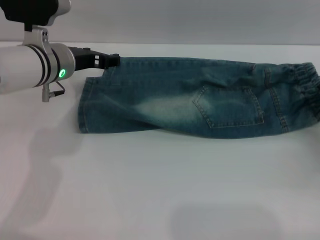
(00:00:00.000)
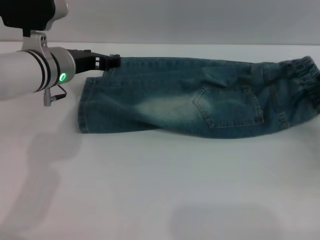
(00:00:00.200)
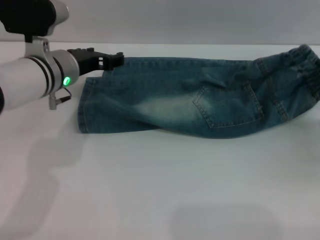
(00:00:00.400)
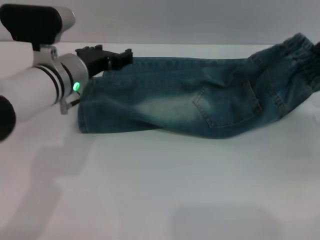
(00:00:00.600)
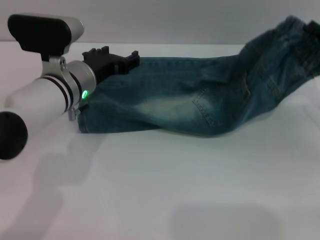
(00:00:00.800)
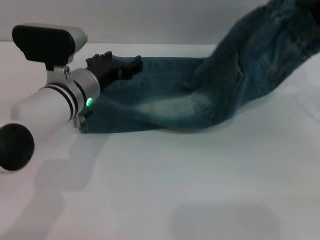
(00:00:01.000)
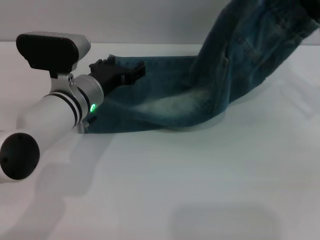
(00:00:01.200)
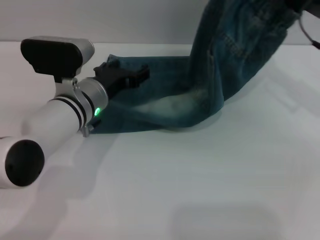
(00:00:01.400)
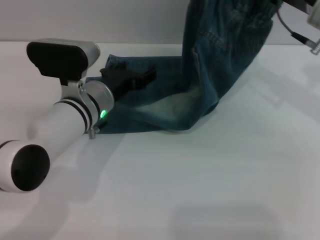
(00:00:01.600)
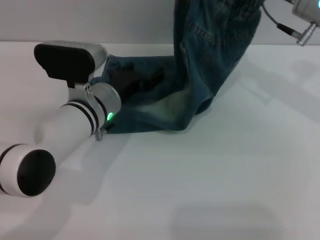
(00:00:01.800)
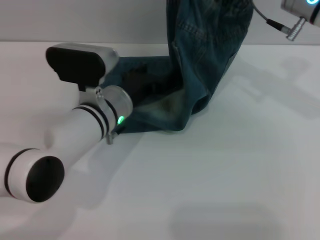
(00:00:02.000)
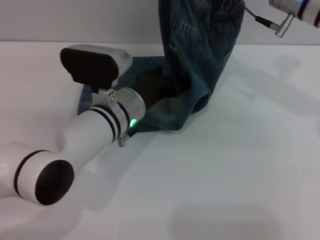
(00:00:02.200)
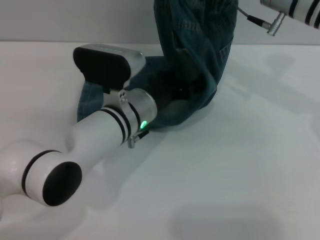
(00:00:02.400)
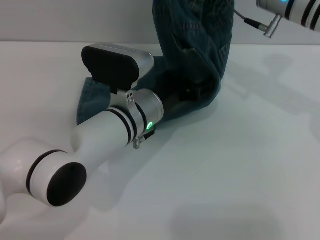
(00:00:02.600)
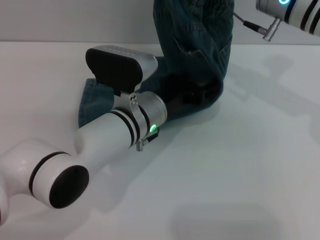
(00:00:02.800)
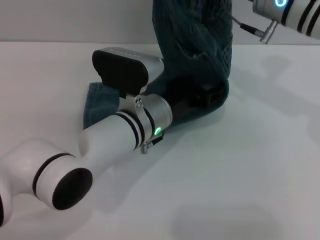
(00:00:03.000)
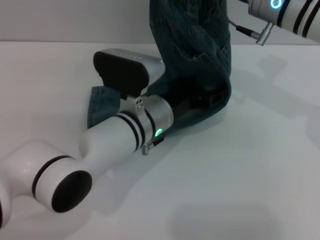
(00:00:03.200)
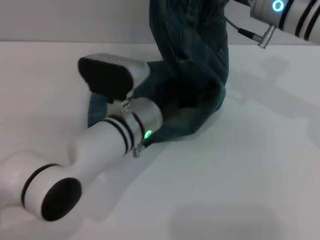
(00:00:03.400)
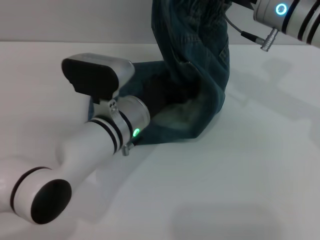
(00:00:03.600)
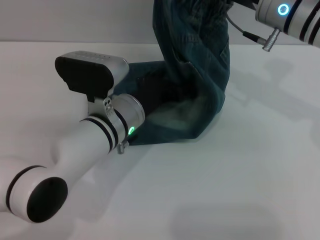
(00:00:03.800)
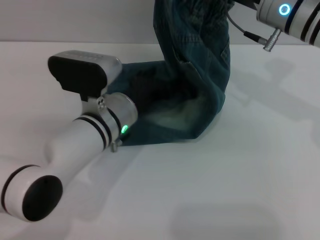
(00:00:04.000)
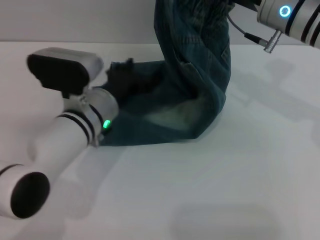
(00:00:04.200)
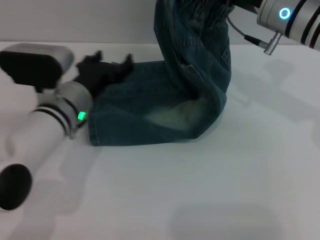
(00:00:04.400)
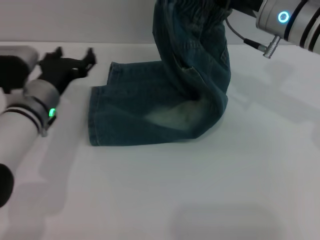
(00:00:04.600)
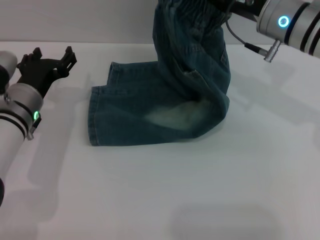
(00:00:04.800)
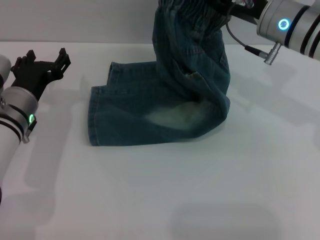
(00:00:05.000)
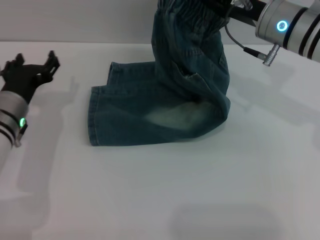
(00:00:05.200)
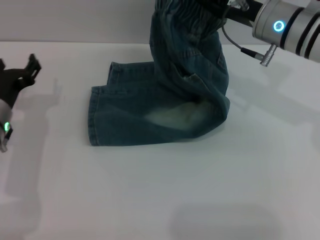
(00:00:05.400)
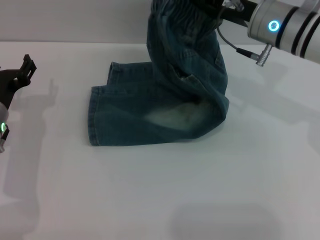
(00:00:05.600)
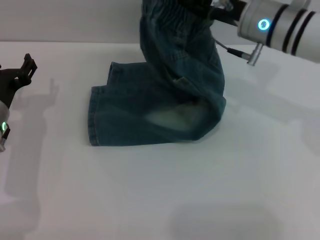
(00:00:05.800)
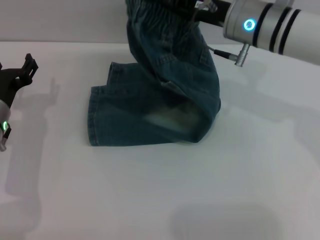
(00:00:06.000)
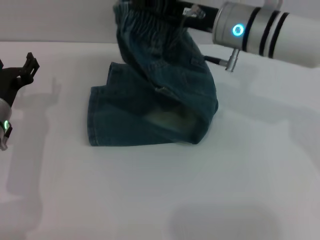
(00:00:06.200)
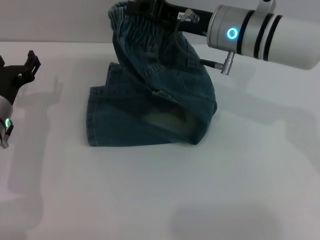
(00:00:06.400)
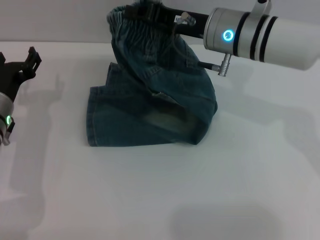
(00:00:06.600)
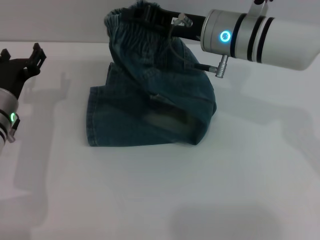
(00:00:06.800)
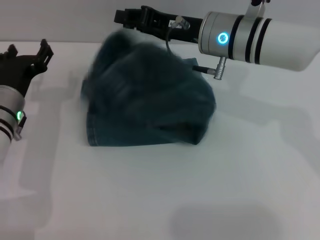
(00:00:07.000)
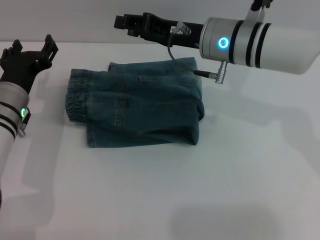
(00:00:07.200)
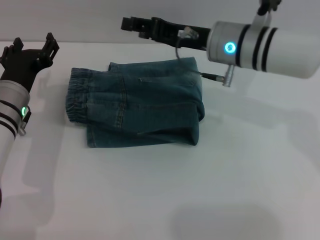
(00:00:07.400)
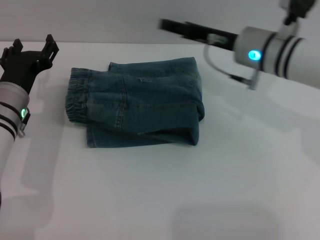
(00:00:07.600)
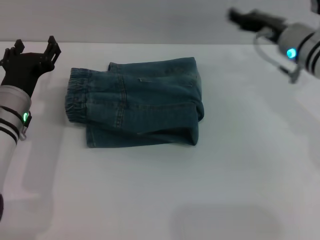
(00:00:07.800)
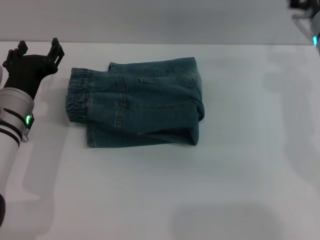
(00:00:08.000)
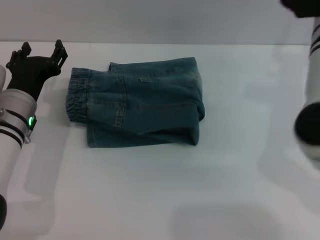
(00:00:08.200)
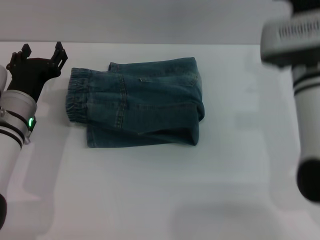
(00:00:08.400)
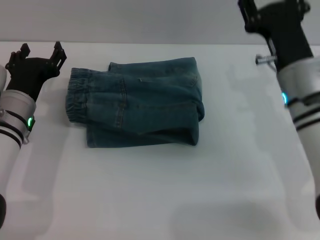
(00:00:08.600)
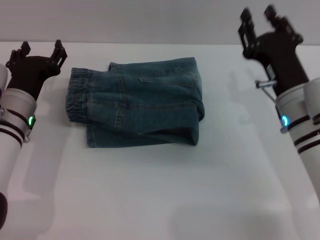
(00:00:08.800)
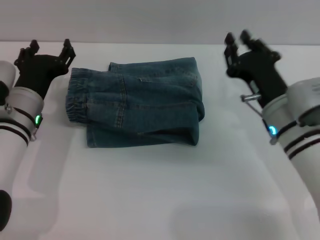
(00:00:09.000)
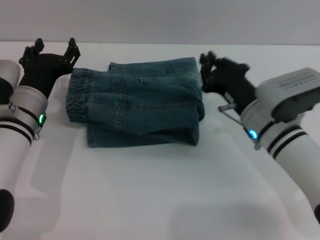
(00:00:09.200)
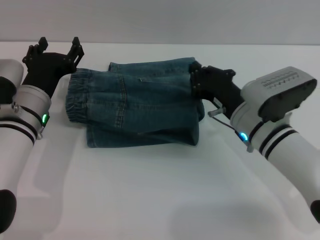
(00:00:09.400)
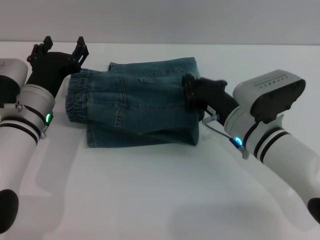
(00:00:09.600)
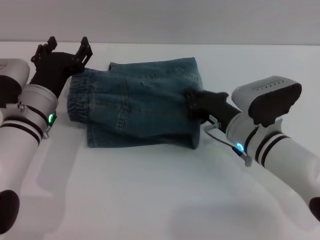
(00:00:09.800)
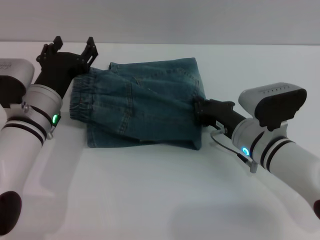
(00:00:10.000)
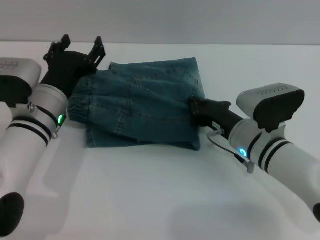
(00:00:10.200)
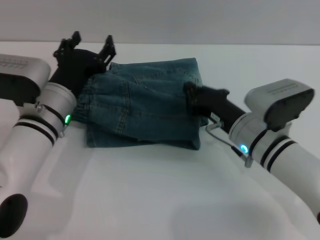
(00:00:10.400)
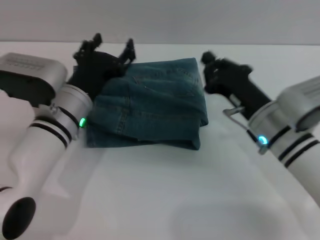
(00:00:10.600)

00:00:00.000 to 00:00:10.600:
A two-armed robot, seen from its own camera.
Step, 00:00:00.000 to 00:00:07.400: Fold the pants from right to left with the right gripper.
00:00:00.000 to 00:00:01.600: The right gripper shifts some 20 cm upward, to the left and forward. Meanwhile the left gripper travels downward and to the right by about 10 cm.
00:00:01.600 to 00:00:03.000: The left gripper moves to the right, some 10 cm; the right gripper moves to the left, about 5 cm.
00:00:03.000 to 00:00:04.600: The left gripper is displaced to the left by some 15 cm.
00:00:04.600 to 00:00:06.000: The left gripper is displaced to the left by roughly 5 cm.
00:00:06.000 to 00:00:07.600: The right gripper opens its fingers.
00:00:07.600 to 00:00:09.000: The right gripper goes approximately 10 cm backward and downward.
00:00:09.000 to 00:00:10.600: The right gripper closes its fingers. Meanwhile the left gripper moves to the right, roughly 5 cm.

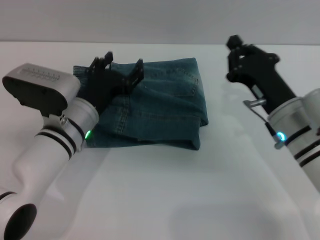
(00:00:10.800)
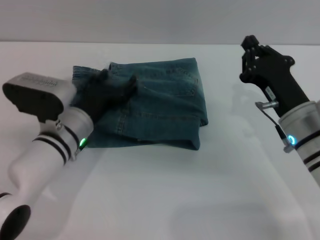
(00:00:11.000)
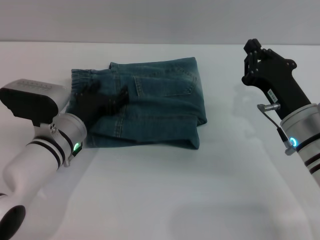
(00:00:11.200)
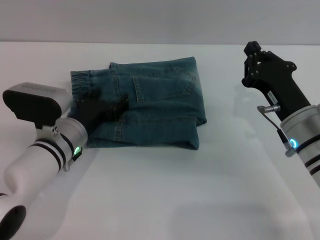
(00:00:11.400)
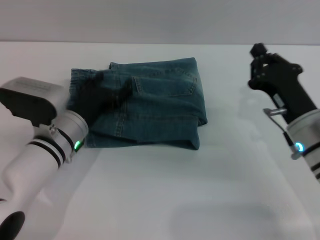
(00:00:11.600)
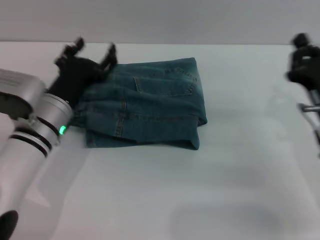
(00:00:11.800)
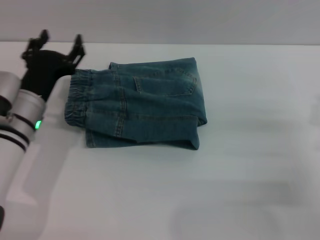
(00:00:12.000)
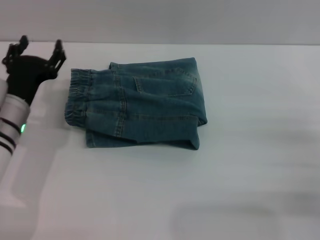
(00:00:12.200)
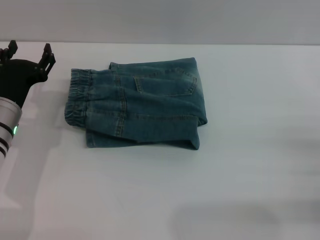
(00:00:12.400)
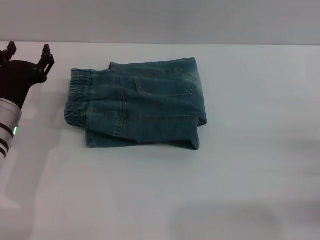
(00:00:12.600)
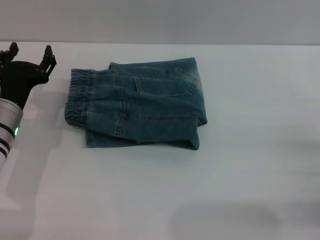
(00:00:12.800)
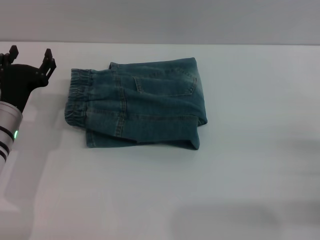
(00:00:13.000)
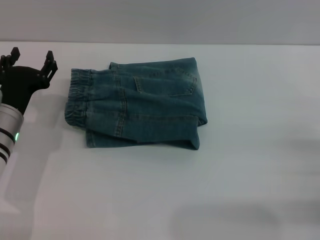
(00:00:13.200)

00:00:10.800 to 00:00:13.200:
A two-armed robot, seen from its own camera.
00:00:10.800 to 00:00:12.000: The right gripper heads to the right and backward, covering some 10 cm. The left gripper shifts about 5 cm to the left.
00:00:12.000 to 00:00:13.200: The right gripper moves approximately 5 cm, and opens.
